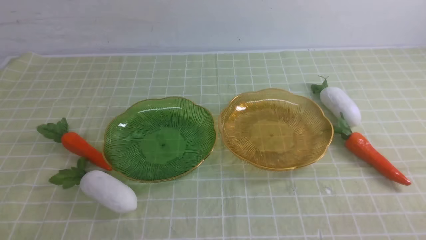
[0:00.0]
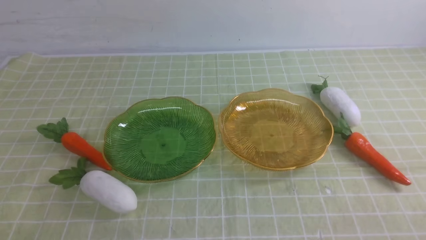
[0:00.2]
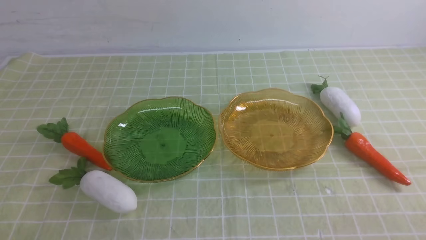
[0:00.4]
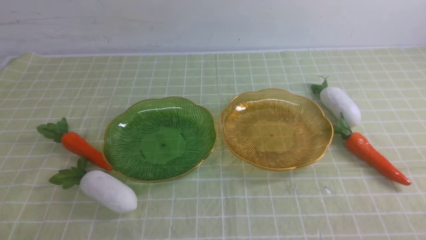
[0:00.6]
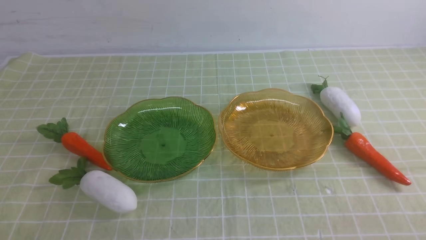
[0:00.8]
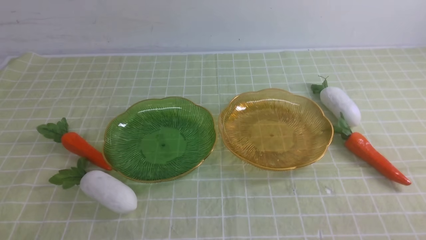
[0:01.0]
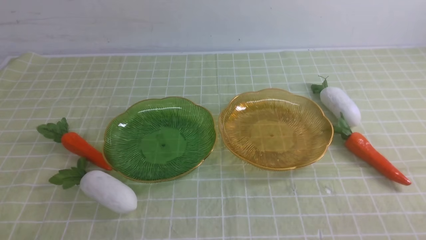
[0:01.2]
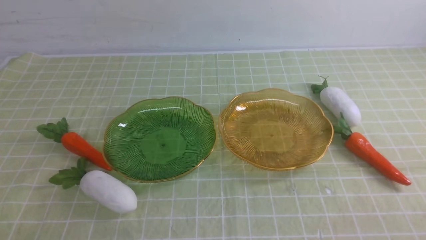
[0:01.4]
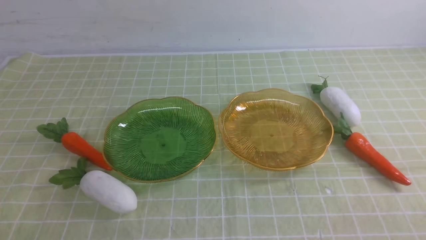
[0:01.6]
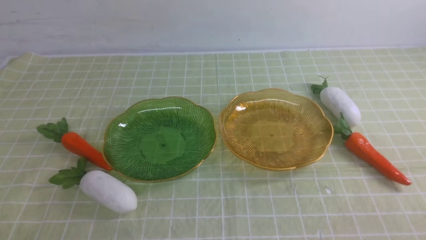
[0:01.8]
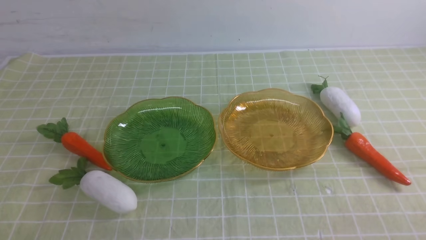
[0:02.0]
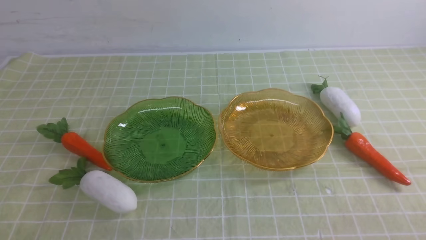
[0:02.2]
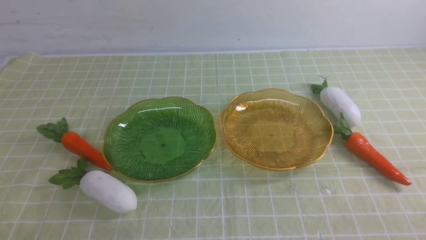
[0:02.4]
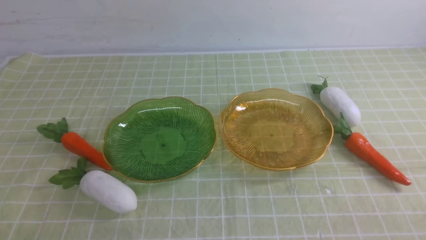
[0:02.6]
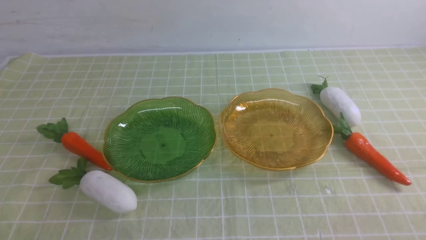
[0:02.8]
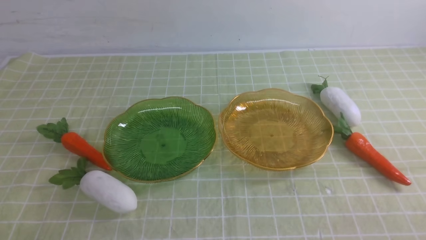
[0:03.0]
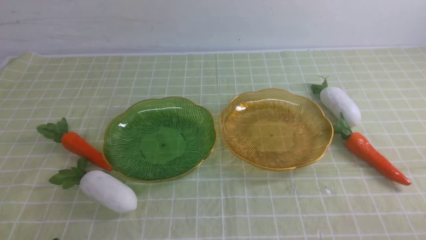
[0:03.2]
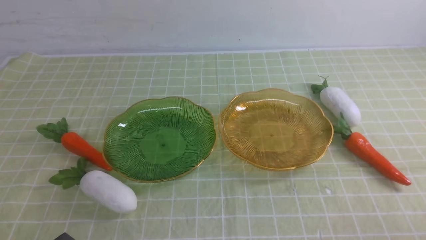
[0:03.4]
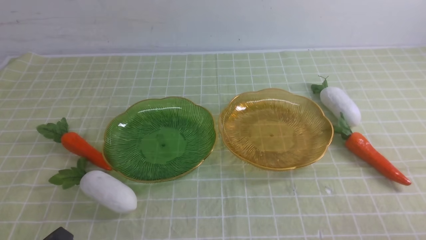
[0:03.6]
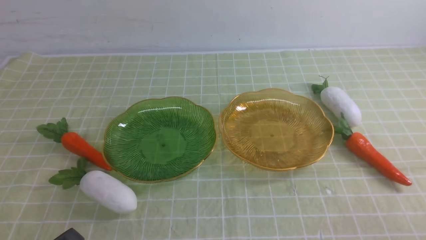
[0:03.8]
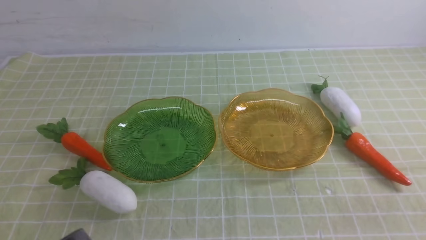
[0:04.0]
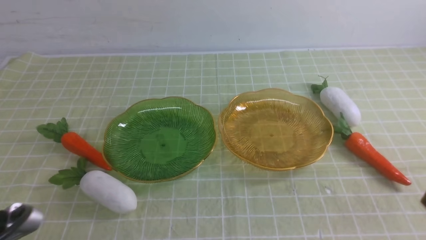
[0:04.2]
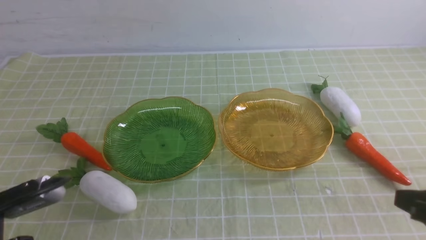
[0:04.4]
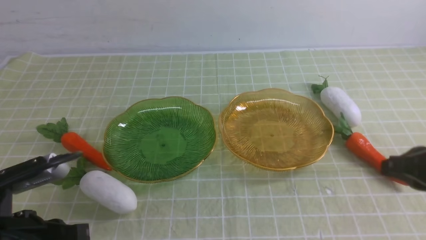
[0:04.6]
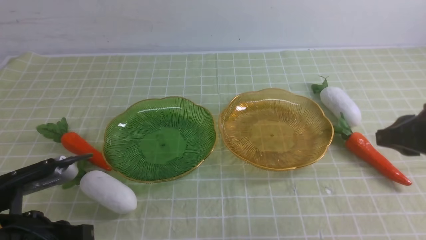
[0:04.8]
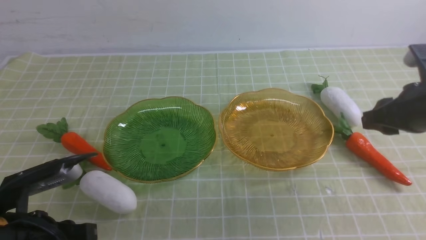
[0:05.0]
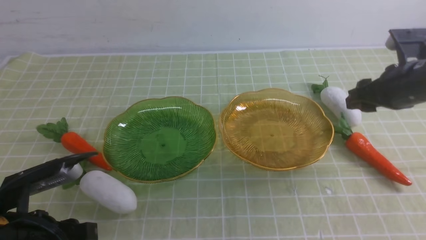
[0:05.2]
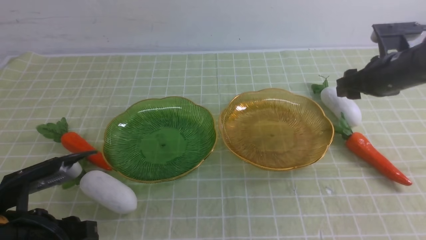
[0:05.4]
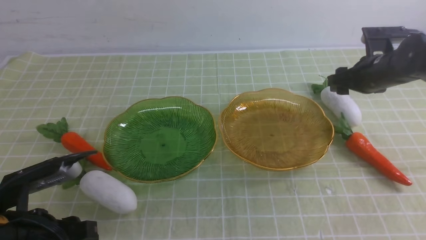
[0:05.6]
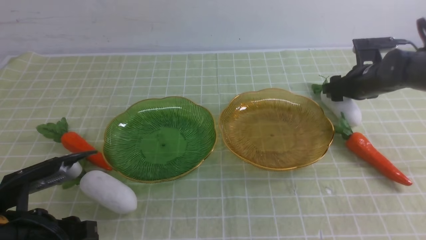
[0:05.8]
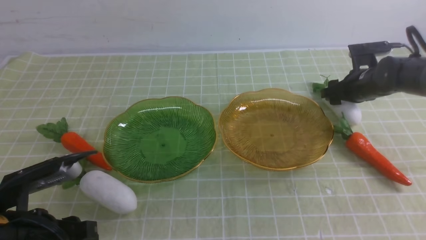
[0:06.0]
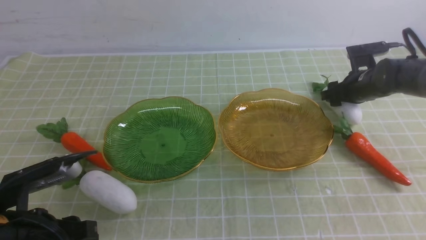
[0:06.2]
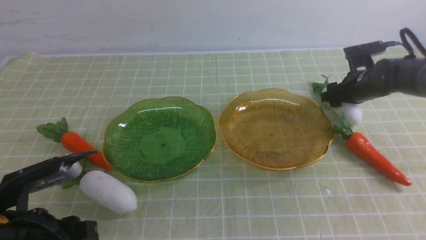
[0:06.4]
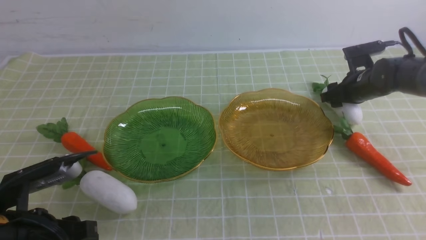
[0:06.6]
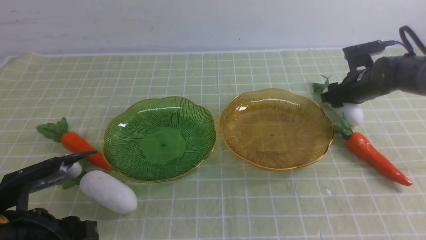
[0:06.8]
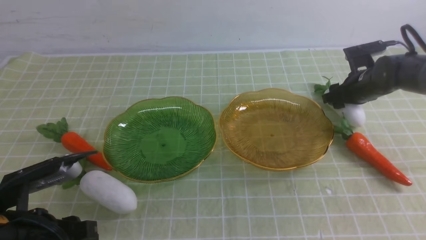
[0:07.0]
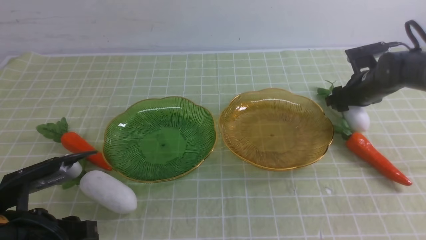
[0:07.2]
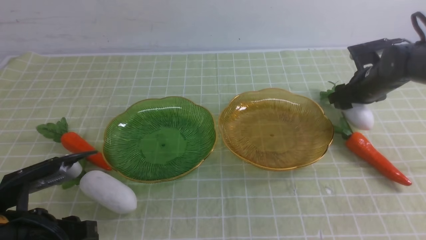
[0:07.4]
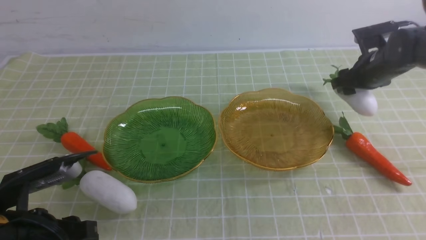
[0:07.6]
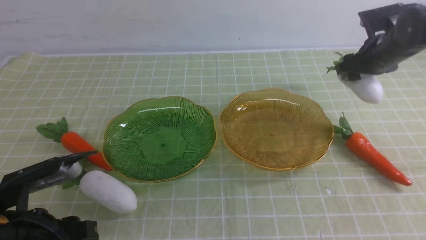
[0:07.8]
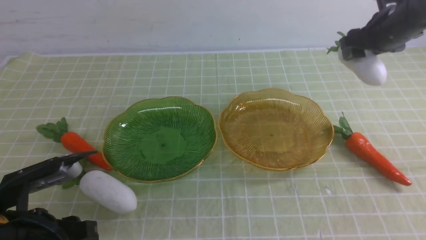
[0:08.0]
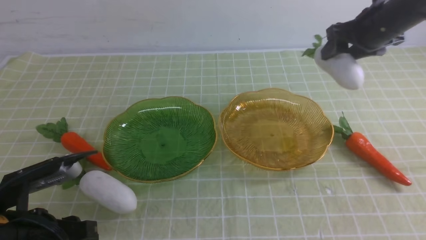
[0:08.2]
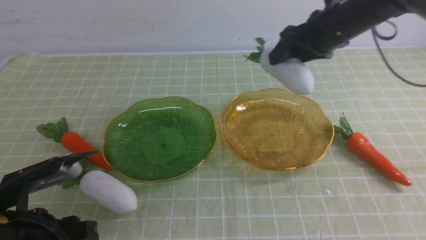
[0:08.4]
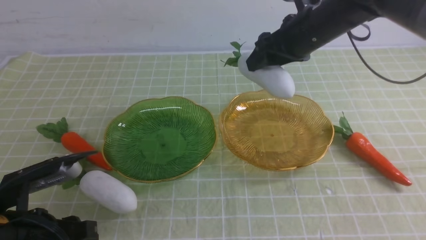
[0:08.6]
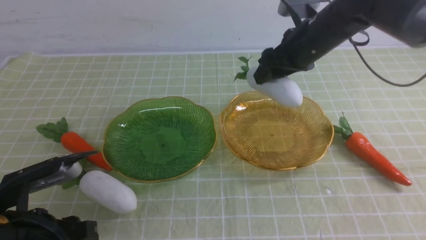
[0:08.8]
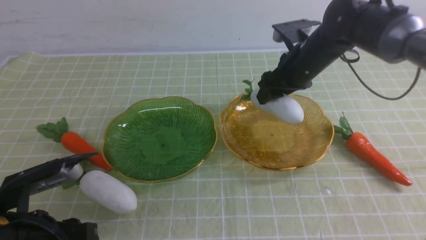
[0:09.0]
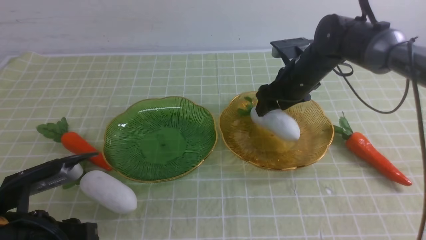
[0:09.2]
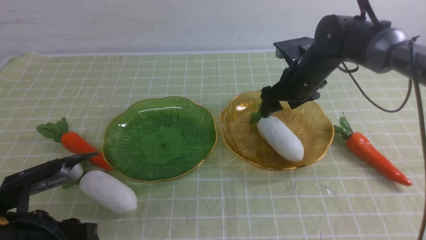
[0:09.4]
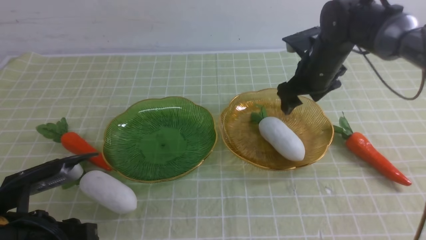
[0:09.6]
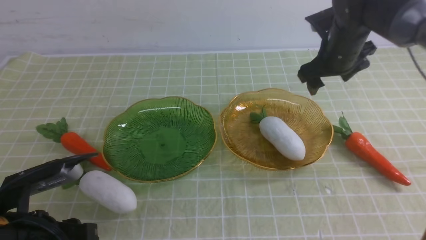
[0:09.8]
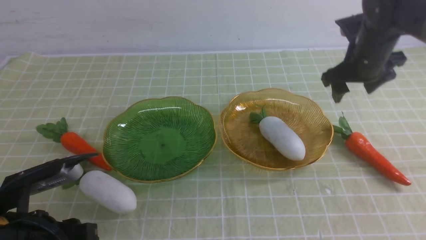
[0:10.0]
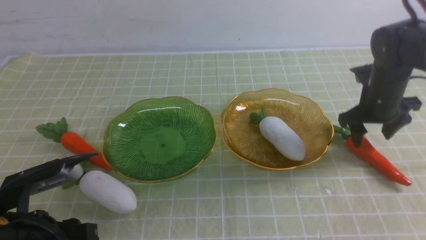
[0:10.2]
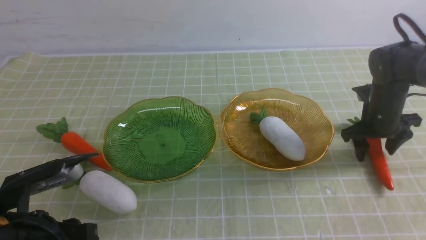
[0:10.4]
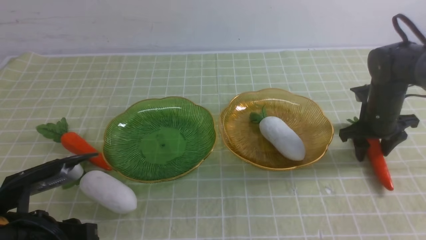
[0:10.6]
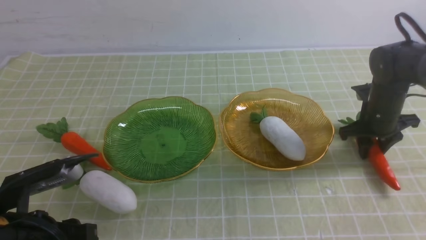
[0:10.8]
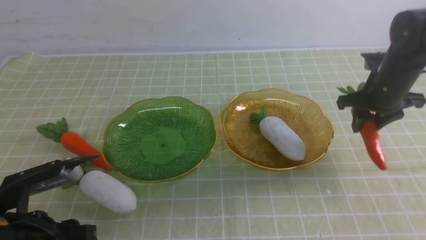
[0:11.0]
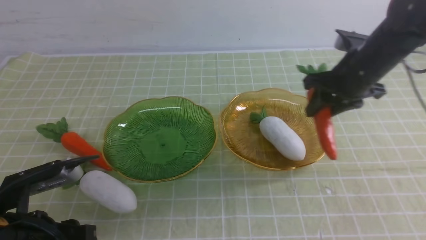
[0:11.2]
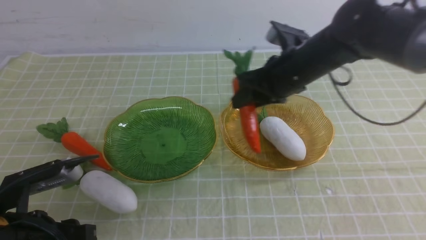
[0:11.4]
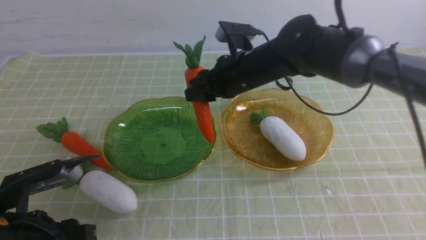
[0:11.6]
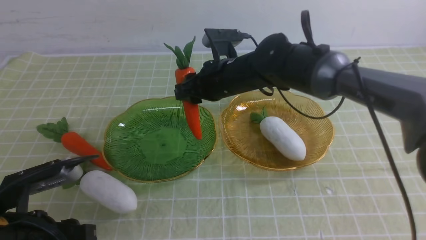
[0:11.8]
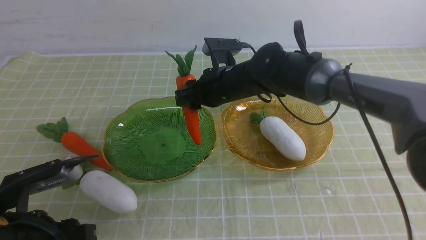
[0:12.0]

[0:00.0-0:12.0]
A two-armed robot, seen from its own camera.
Step, 0:00.0 to 0:10.0: use the right arm to grab a radish and put it into the right plate.
0:03.0 to 0:04.4: The right gripper is displaced upward and forward by roughly 15 cm. Meanwhile the left gripper moves upward, roughly 5 cm.
0:04.4 to 0:06.0: The left gripper changes place by about 5 cm, and opens up; the right gripper is displaced forward by approximately 35 cm, and opens.
0:06.0 to 0:07.6: The grippers make only small movements.
0:07.6 to 0:09.0: The right gripper travels to the left and upward by roughly 15 cm.
0:09.0 to 0:10.4: The right gripper travels to the right and downward by roughly 15 cm.
0:10.4 to 0:12.0: The right gripper is displaced to the left by roughly 25 cm, and closes its fingers.

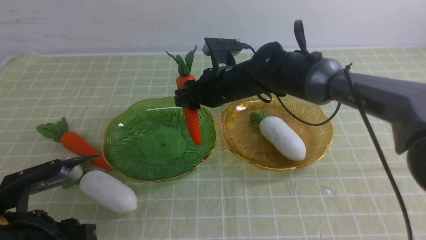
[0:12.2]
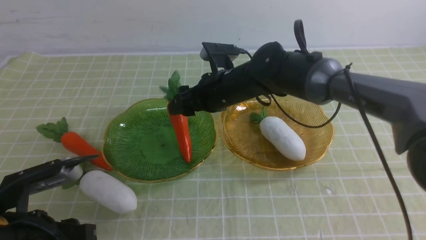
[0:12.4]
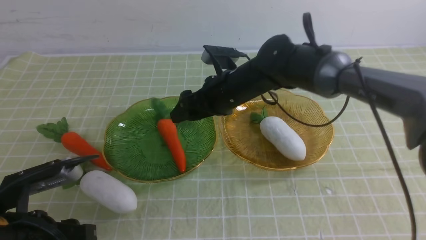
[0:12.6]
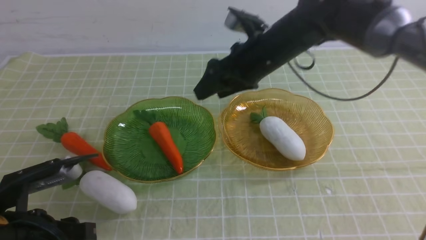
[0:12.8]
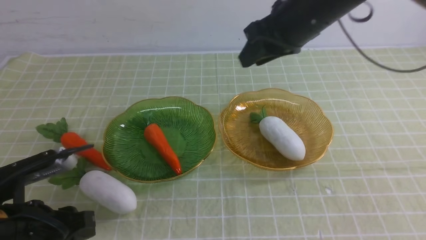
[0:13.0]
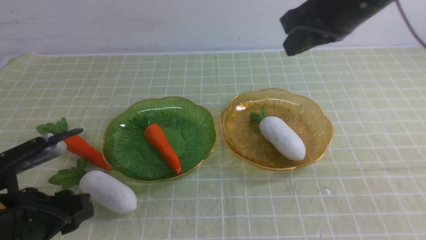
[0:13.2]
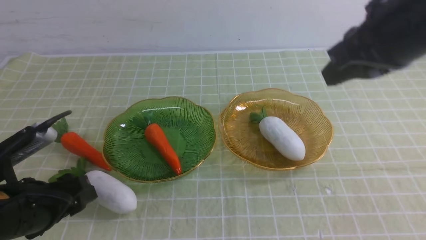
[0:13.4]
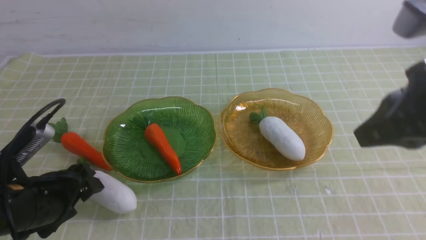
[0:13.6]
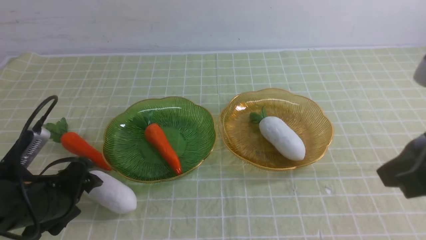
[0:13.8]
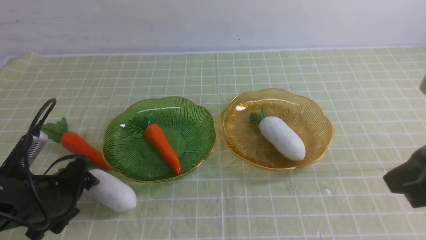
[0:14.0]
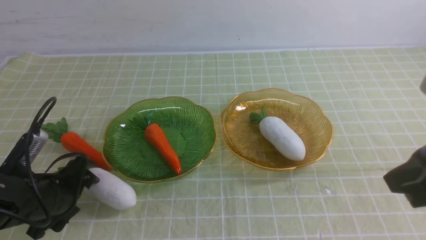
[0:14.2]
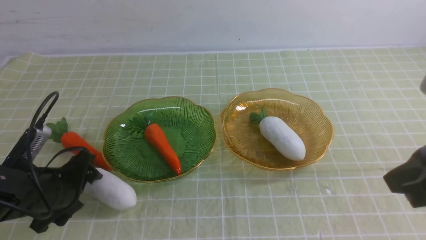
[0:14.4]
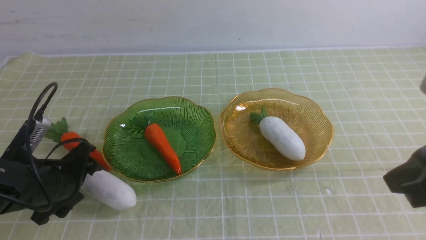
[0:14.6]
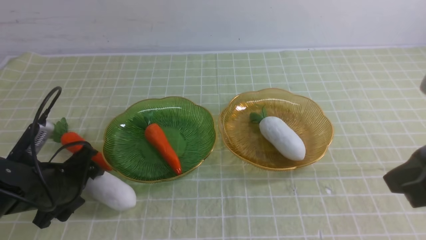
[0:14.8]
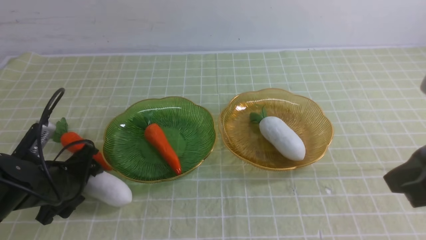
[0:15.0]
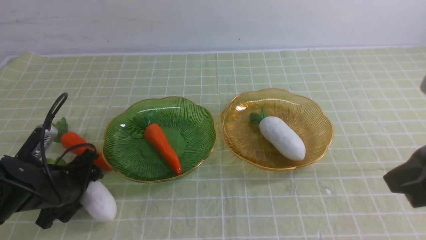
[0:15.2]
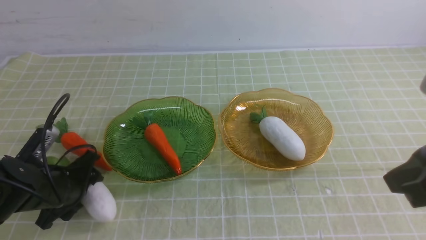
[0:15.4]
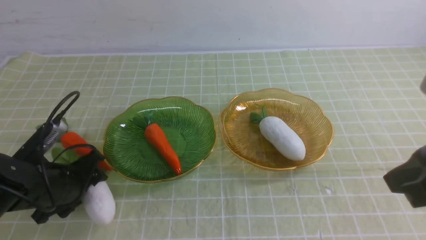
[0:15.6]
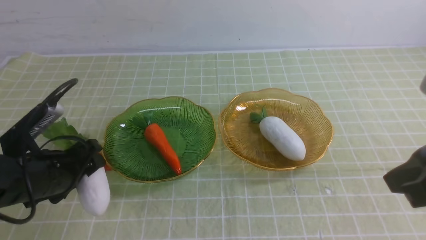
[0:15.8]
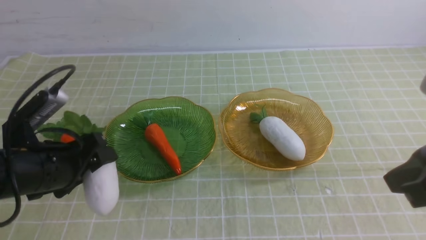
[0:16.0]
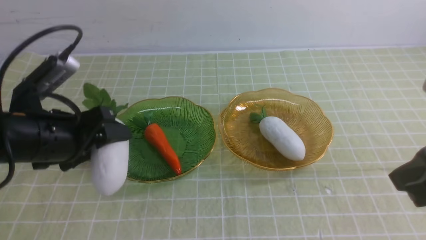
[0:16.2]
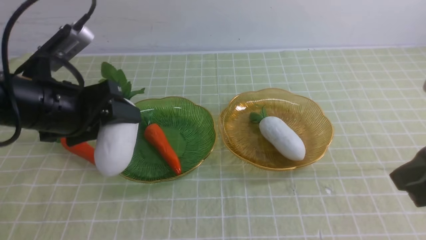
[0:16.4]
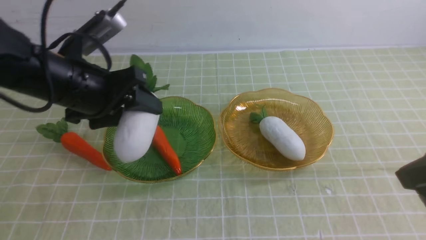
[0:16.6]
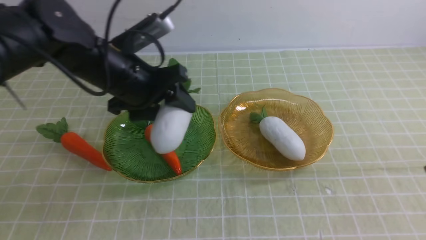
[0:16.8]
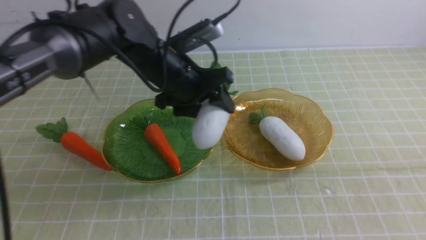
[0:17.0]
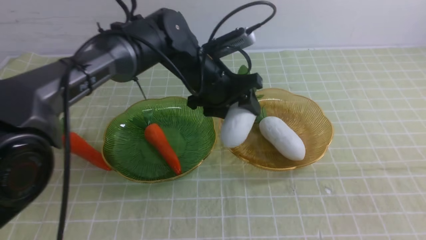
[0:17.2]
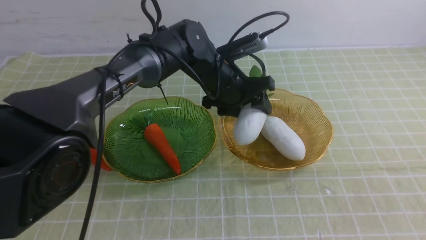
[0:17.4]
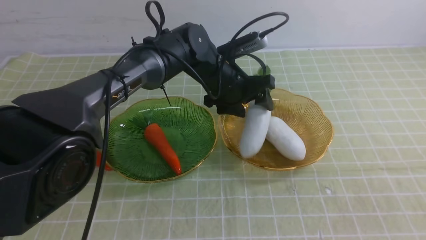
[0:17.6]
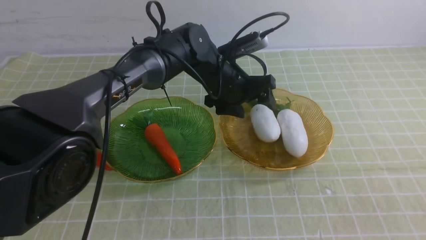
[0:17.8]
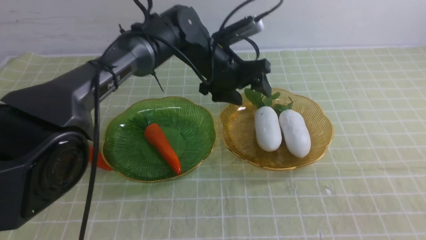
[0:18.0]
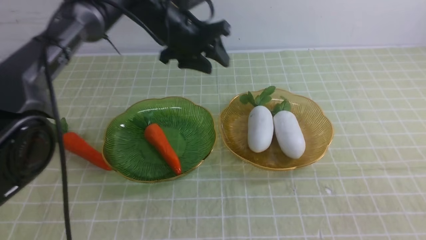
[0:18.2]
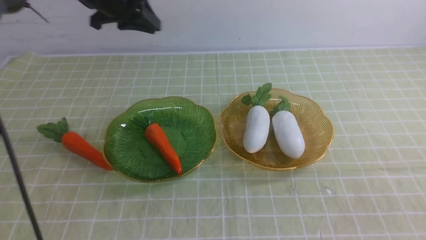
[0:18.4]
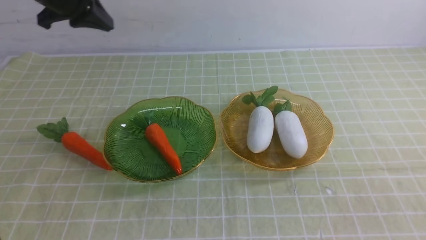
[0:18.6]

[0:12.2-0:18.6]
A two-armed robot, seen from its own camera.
Step, 0:13.4 to 0:18.4: use the left arm to grab a radish and put it into the right plate.
0:12.2 to 0:13.8: The left gripper is displaced forward by roughly 5 cm, and opens its fingers. The right gripper shifts some 35 cm backward, to the right and upward, and closes up.
0:13.8 to 0:15.4: The left gripper changes place by some 5 cm.
0:15.4 to 0:17.0: The right gripper is displaced backward by roughly 5 cm. The left gripper heads to the right, upward and forward, covering about 25 cm.
0:17.0 to 0:18.6: The left gripper moves to the left, forward and upward, about 15 cm, and closes; the right gripper moves about 5 cm.
